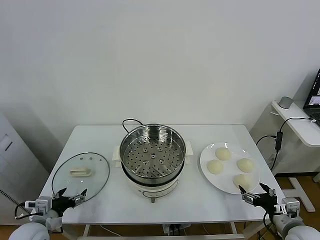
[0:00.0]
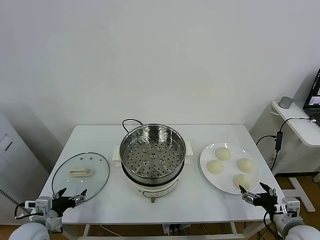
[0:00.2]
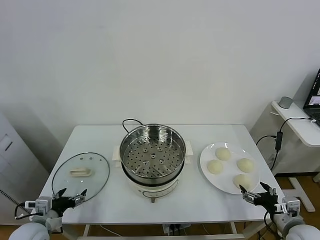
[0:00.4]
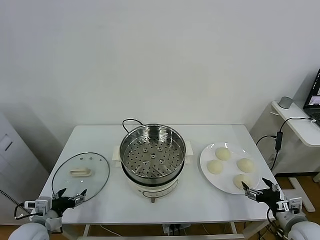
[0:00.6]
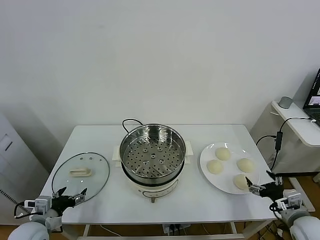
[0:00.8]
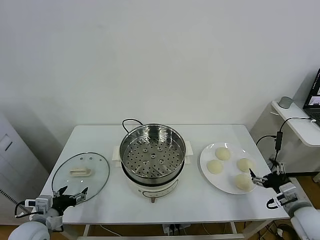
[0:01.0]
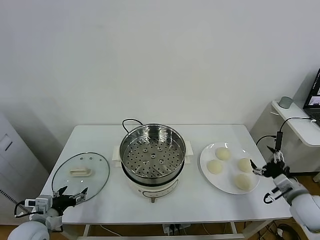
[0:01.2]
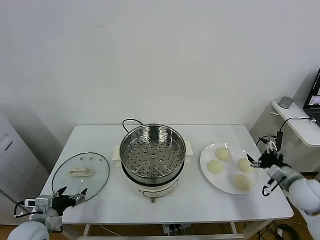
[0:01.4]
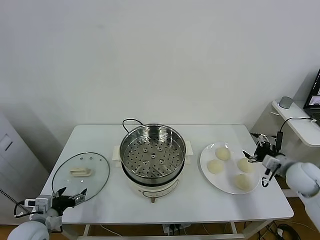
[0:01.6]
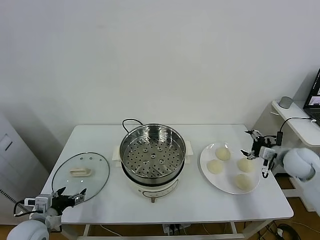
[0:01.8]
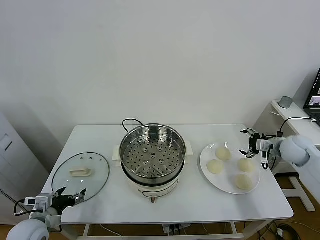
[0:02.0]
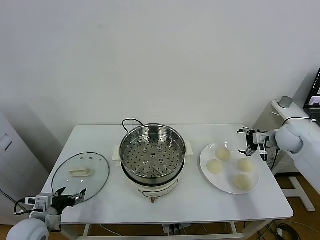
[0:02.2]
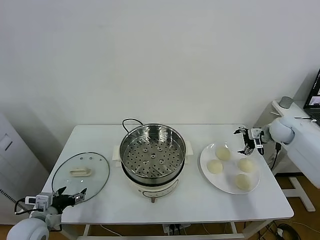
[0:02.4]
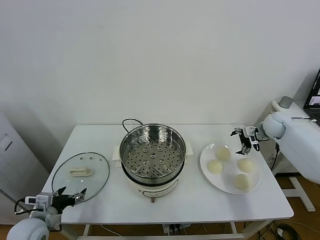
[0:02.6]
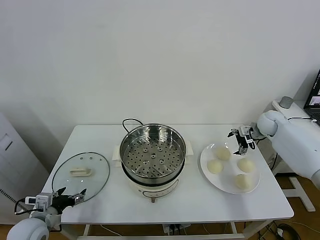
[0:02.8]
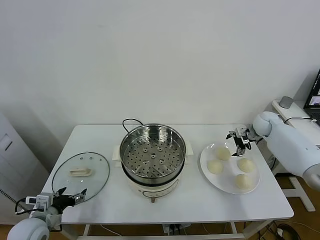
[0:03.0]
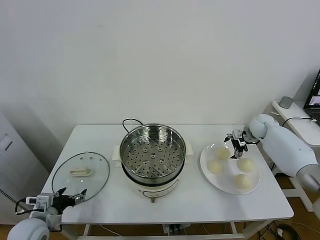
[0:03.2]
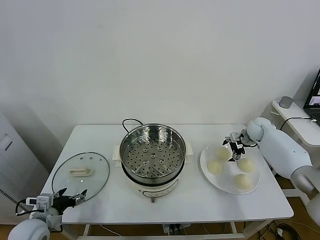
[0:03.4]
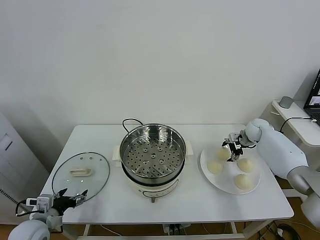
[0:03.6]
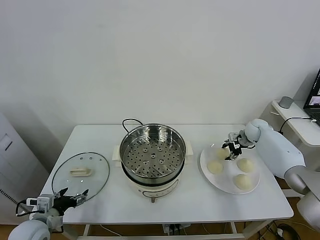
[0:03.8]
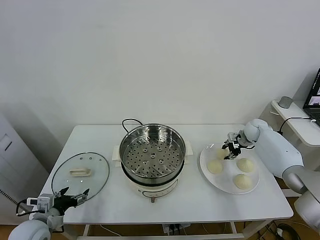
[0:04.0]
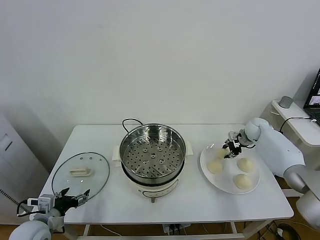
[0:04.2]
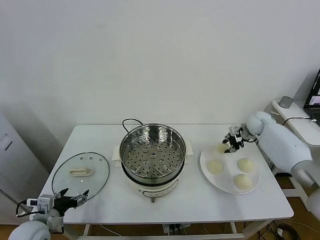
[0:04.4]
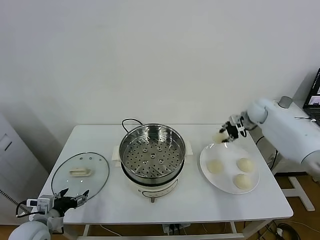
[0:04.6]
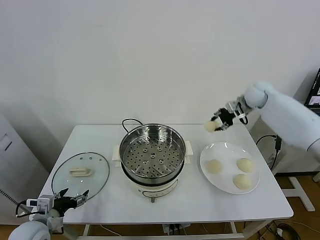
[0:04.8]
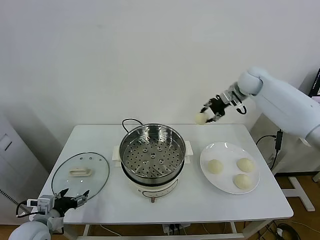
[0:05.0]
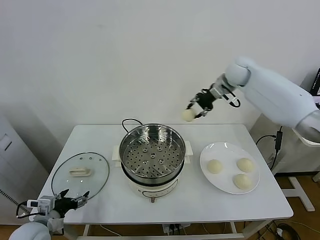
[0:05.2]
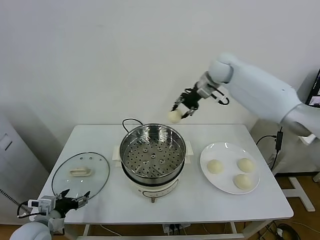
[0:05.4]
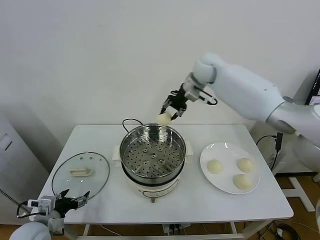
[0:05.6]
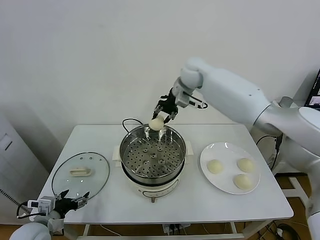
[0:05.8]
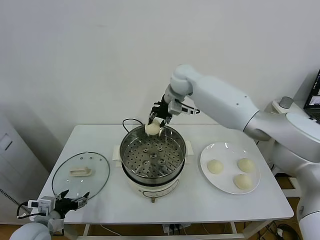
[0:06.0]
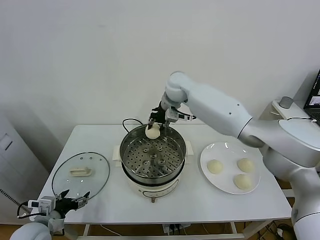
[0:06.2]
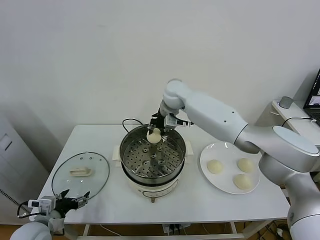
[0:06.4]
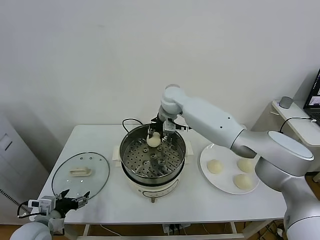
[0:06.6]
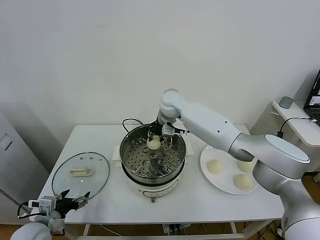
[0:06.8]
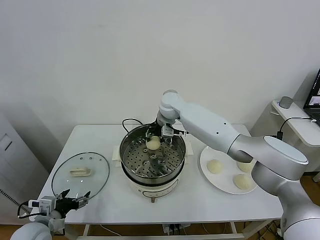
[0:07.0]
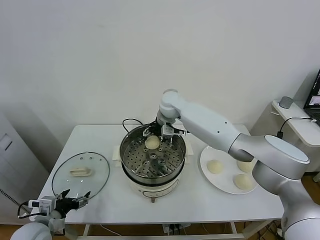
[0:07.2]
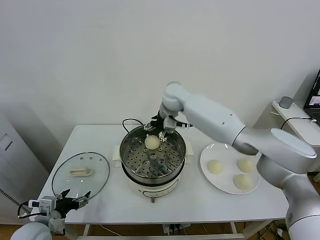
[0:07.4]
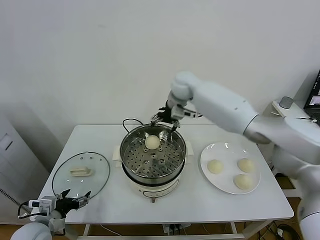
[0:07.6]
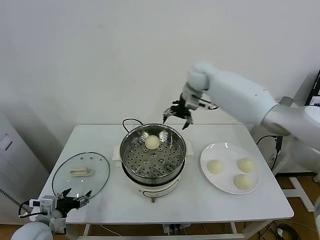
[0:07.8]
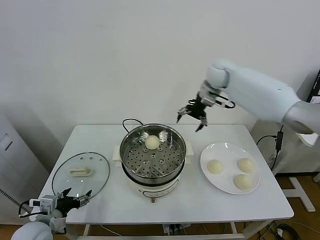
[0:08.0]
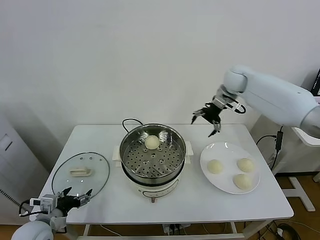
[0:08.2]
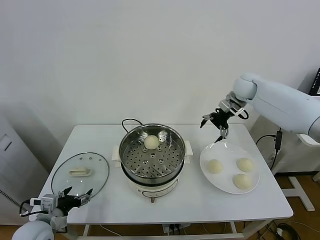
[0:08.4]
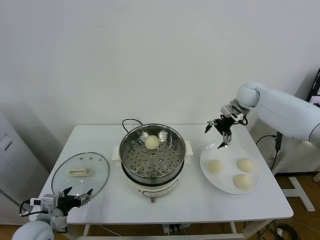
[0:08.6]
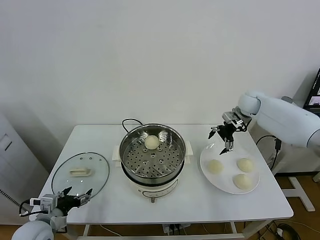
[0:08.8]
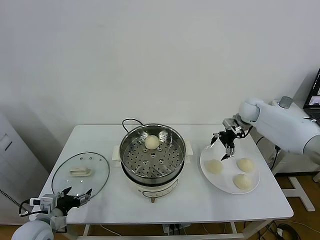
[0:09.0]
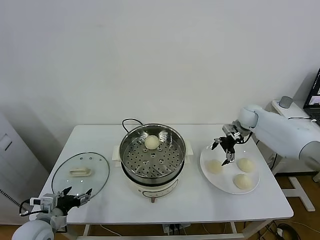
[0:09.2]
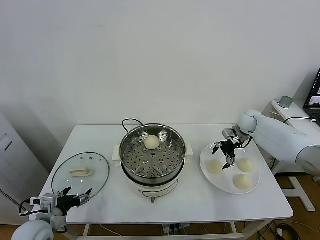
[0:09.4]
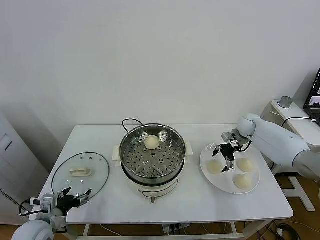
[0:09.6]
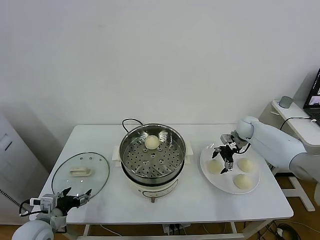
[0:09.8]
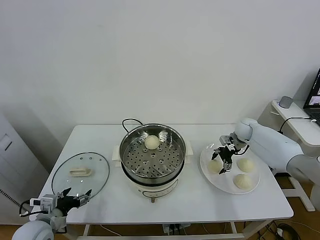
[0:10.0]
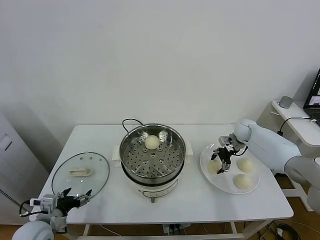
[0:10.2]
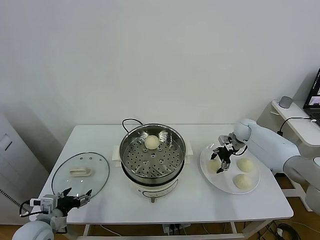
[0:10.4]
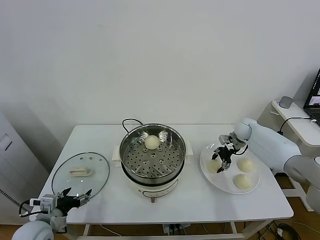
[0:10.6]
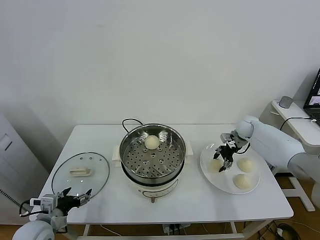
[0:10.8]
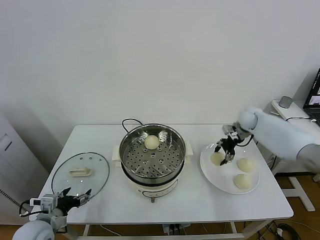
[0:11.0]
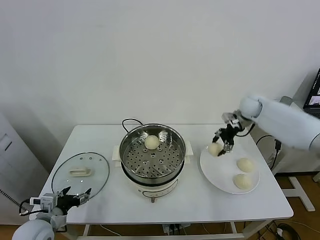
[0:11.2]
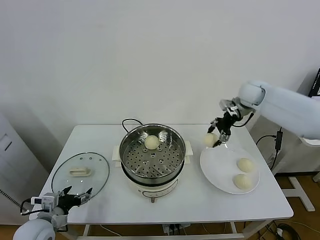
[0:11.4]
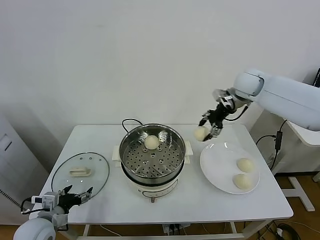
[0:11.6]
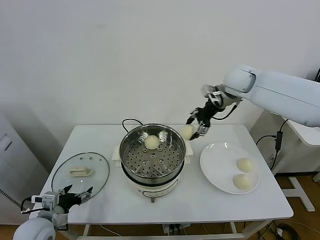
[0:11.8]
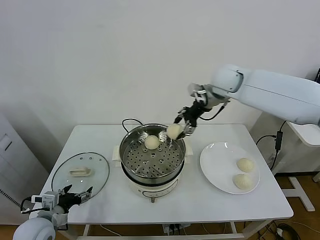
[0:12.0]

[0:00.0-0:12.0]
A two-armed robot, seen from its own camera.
Task of the whole recording: take steamed baozi put them in steamer.
Step, 0:00.0 to 0:04.0: Grasp the baozi in the plate with right gripper.
Step, 0:04.2 to 0:07.2: Place the baozi on the steamer with right gripper.
Step, 0:07.4 to 0:10.4: Grasp the baozi in the plate with right gripper.
0:01.6 to 0:03.0: The right gripper heads forward, covering about 20 cm.
0:03.0 to 0:04.4: The right gripper heads upward, covering some 10 cm, and closes its fingers.
0:04.4 to 0:06.0: The right gripper goes some 35 cm to the left.
0:06.0 to 0:07.6: The right gripper goes approximately 10 cm to the right, reaches about 5 cm downward, then returns, and opens up.
0:07.6 to 0:09.0: The right gripper moves to the right and downward, roughly 30 cm.
0:09.0 to 0:10.4: The right gripper shifts roughly 5 cm downward, and closes.
0:10.4 to 0:12.0: The right gripper moves upward and to the left, roughly 30 cm.

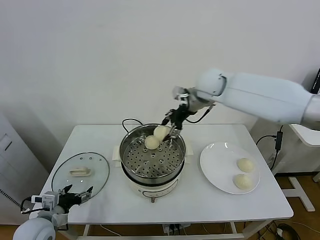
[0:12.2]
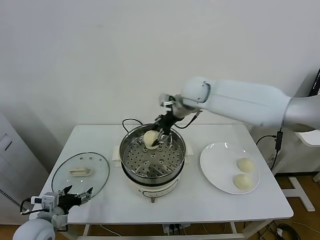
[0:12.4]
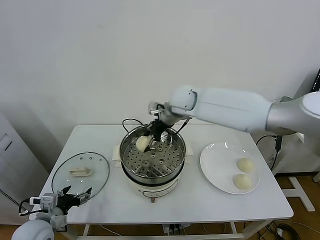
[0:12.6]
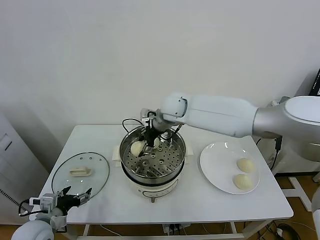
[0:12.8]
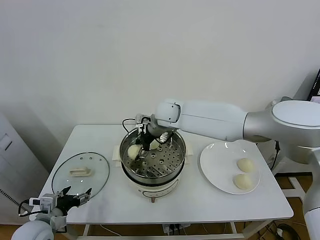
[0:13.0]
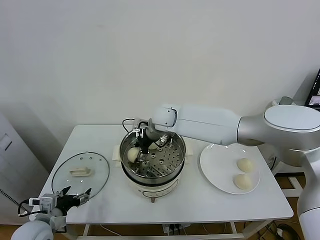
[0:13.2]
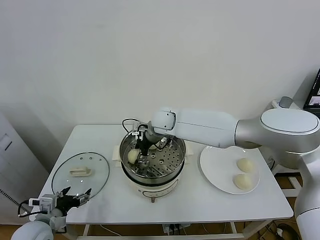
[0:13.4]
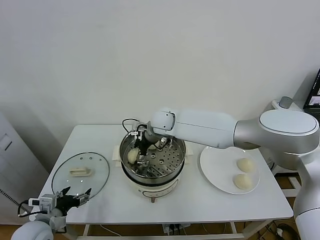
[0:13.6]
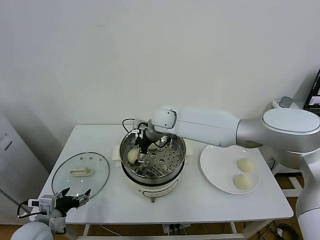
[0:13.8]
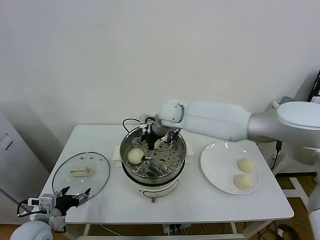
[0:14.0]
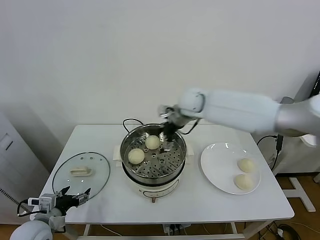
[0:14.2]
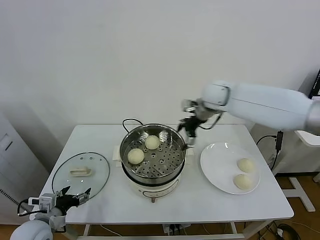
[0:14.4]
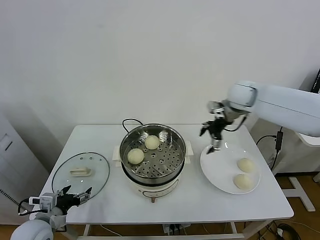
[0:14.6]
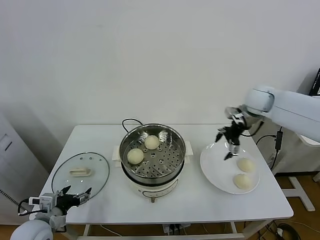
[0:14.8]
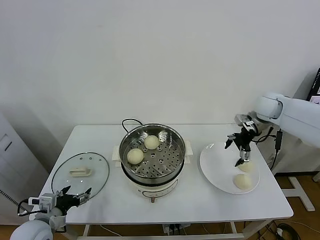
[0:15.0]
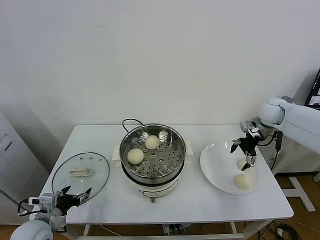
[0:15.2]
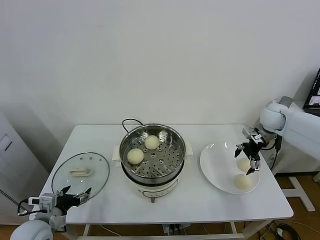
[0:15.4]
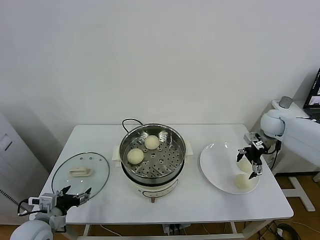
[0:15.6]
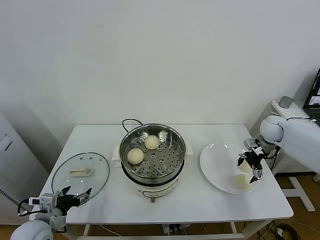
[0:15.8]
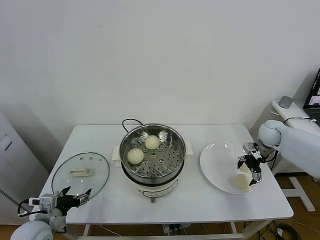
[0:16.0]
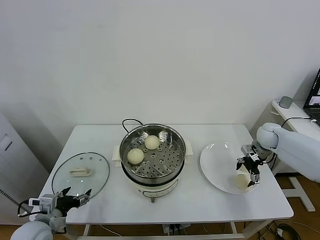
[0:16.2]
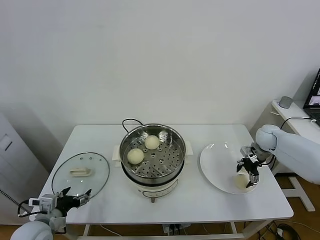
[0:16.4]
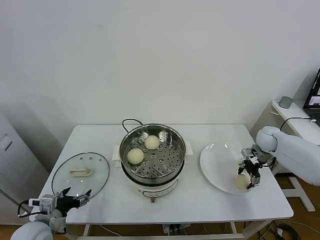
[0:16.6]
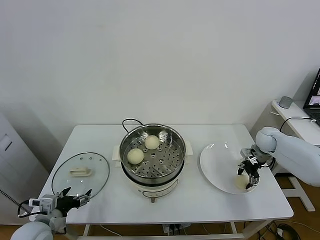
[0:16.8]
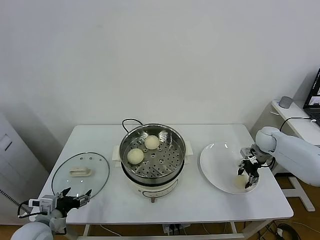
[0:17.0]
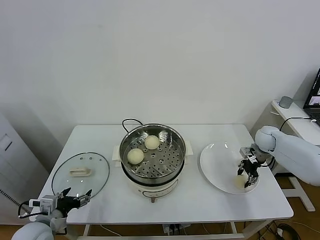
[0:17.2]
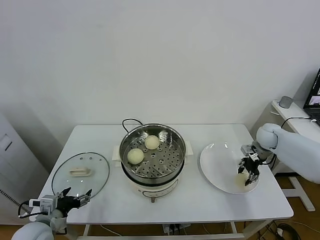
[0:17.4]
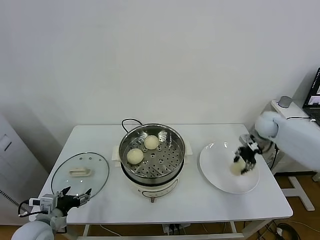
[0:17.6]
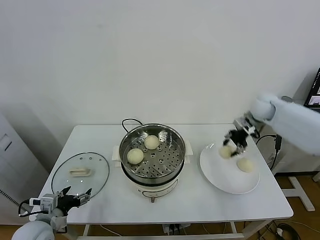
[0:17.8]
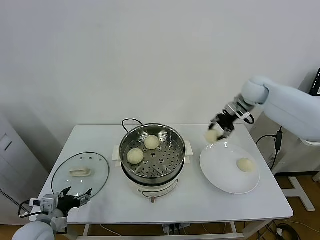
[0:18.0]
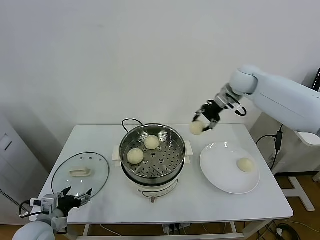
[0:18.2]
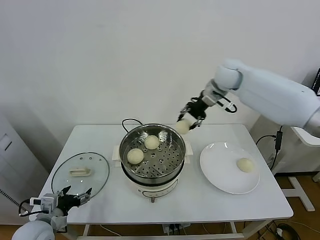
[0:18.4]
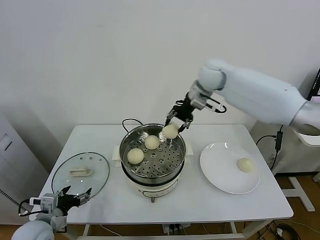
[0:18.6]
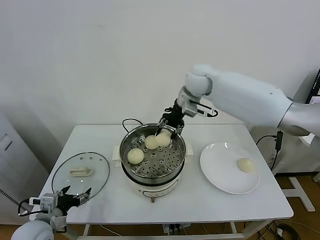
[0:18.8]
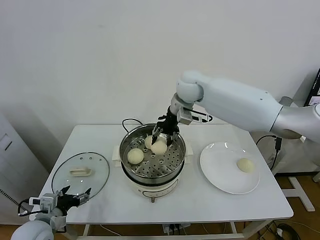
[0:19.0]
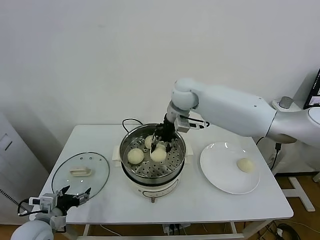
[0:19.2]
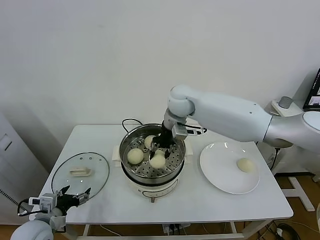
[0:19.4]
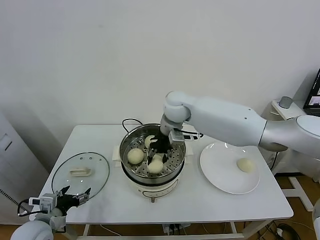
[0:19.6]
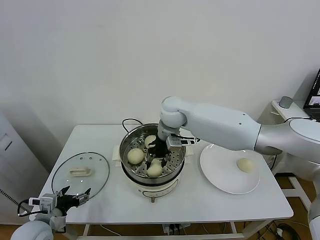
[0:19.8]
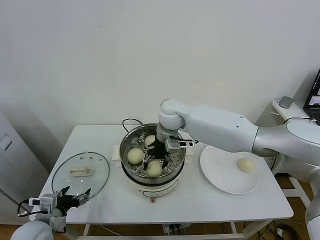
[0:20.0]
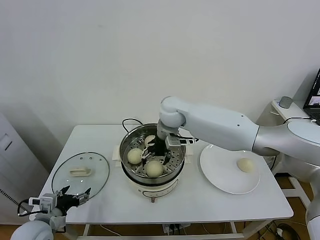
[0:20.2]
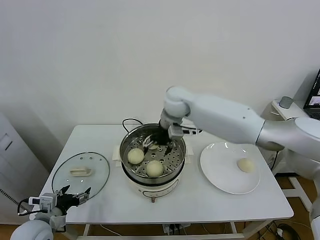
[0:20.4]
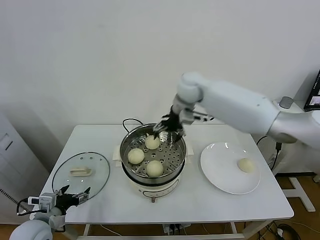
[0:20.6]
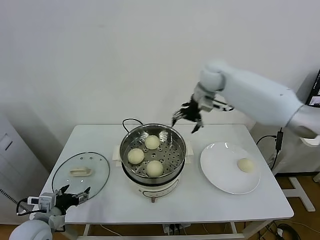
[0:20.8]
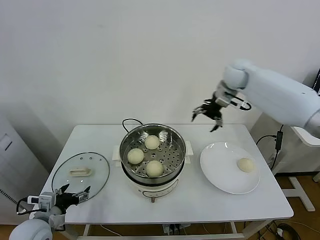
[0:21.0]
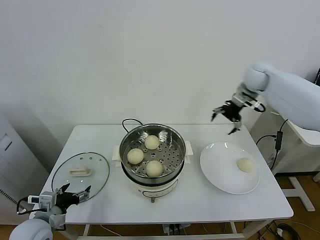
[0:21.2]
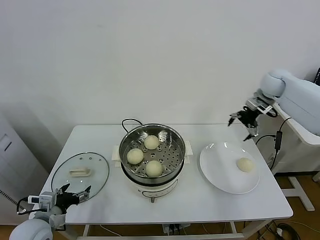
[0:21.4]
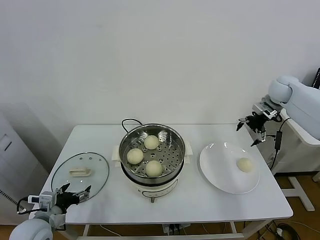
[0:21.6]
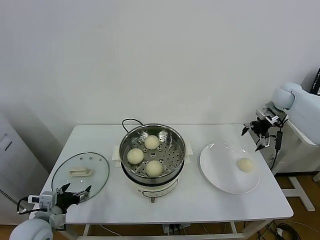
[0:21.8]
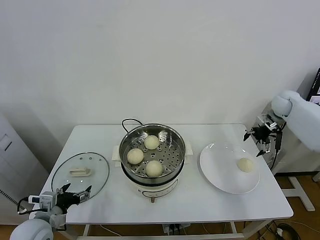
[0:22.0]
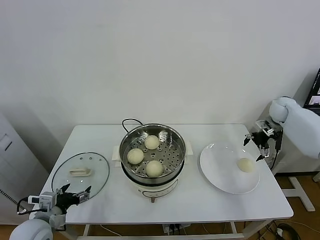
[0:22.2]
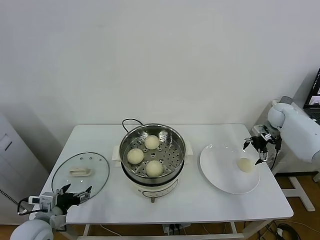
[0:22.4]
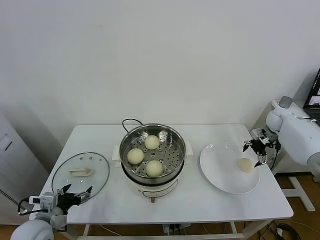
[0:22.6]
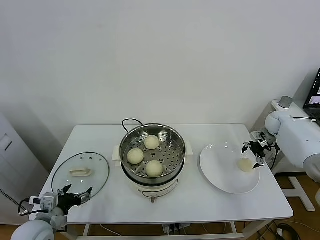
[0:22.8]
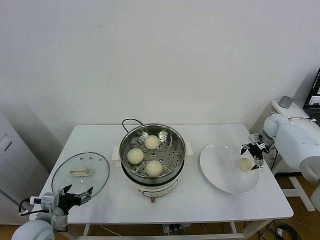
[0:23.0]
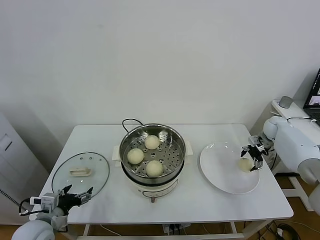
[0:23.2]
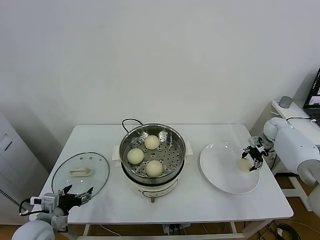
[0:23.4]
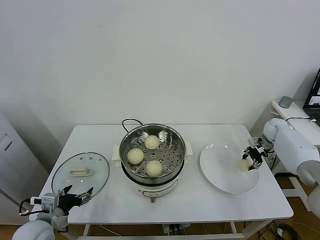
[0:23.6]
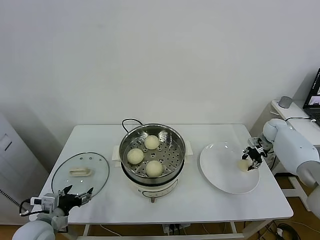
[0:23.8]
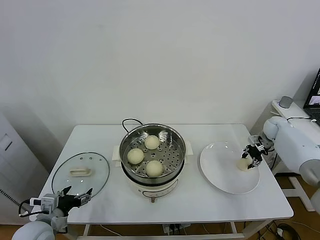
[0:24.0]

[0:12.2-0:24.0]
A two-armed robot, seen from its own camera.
Task of the whole recording: take steamed baozi put them in steamer.
Step, 0:12.2 to 0:14.0: Place the baozi on the steamer with right gripper.
Step, 0:14.2 to 0:17.0: Grasp the baozi in the plate with right gripper.
Step, 0:17.2 to 0:20.2: Place the baozi on the steamer with right gripper.
Step, 0:20.6 to 0:24.0: Grasp the baozi in the plate with right gripper.
0:12.2 to 0:13.6: The right gripper shifts about 15 cm downward and to the left, and opens.
0:13.6 to 0:15.2: The right gripper heads to the right, covering roughly 40 cm.
0:15.2 to 0:16.6: The right gripper is displaced downward by approximately 10 cm, and closes up.
0:16.6 to 0:18.2: The right gripper shifts roughly 30 cm upward and to the left, and closes.
0:18.2 to 0:19.6: The right gripper is displaced to the left and downward by some 20 cm.
0:19.6 to 0:21.0: The right gripper shifts about 25 cm to the right, and opens its fingers.
0:21.0 to 0:22.6: The right gripper moves downward and to the right, approximately 30 cm.
0:22.6 to 0:24.0: The right gripper closes up.
